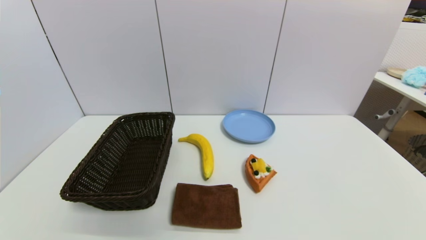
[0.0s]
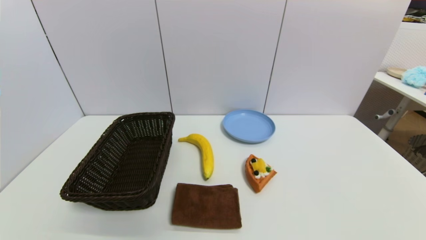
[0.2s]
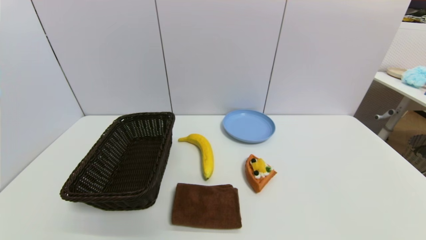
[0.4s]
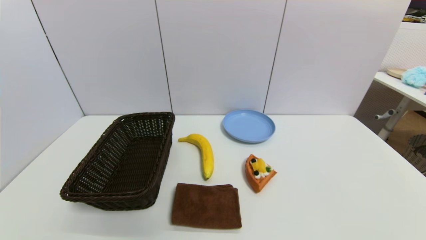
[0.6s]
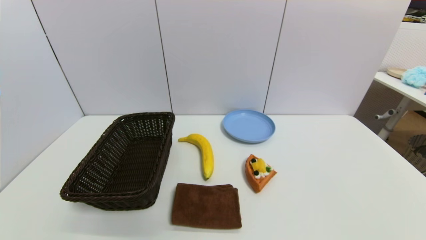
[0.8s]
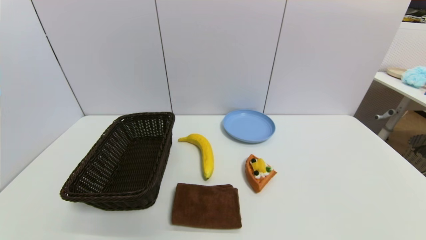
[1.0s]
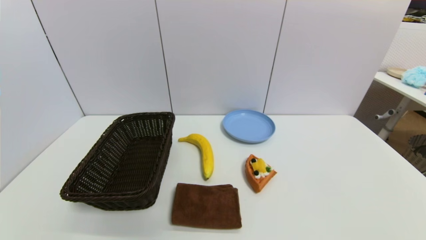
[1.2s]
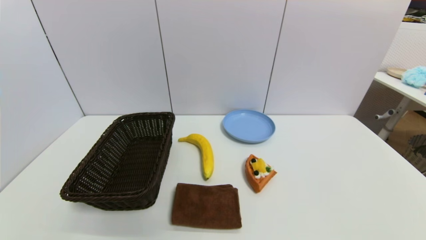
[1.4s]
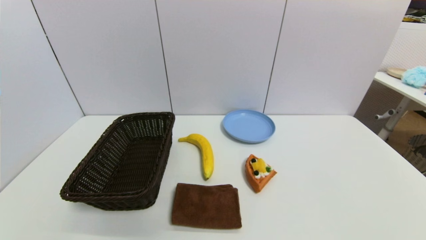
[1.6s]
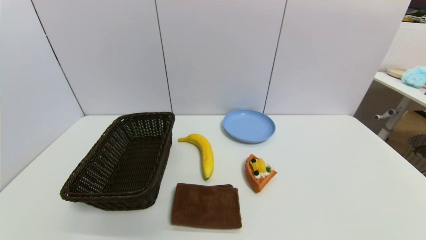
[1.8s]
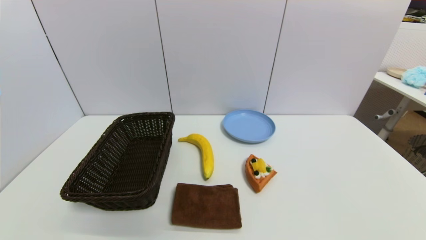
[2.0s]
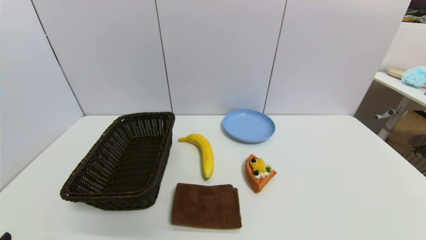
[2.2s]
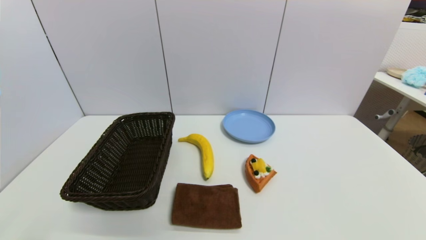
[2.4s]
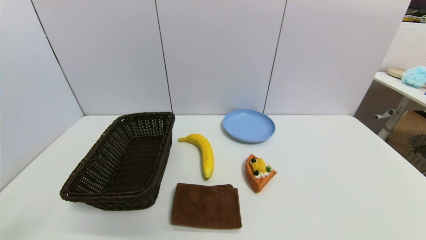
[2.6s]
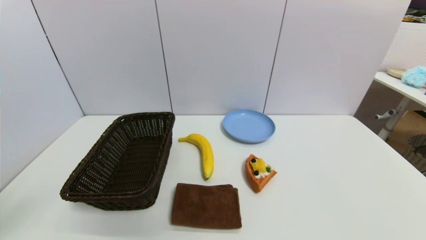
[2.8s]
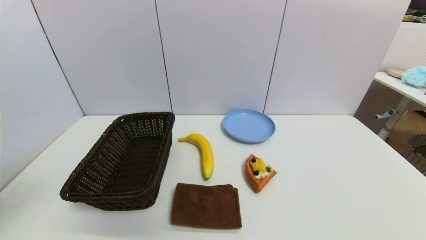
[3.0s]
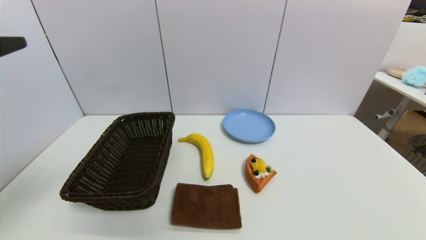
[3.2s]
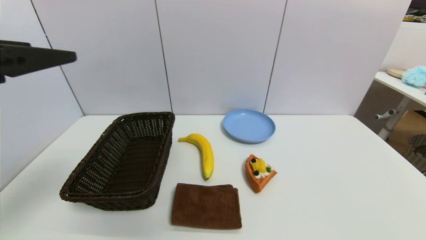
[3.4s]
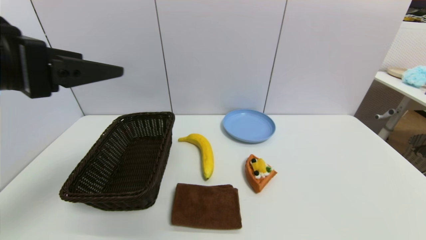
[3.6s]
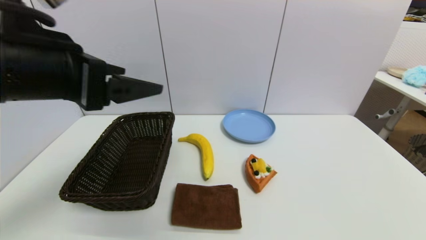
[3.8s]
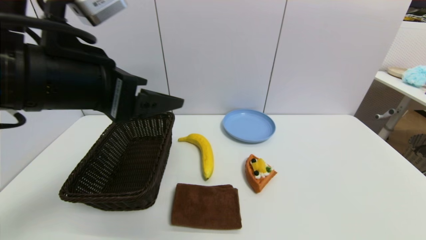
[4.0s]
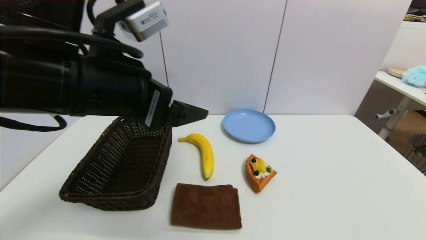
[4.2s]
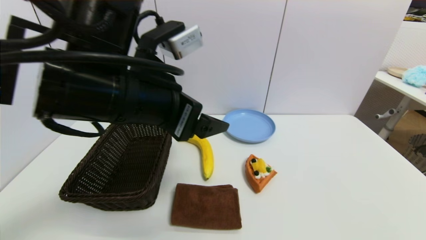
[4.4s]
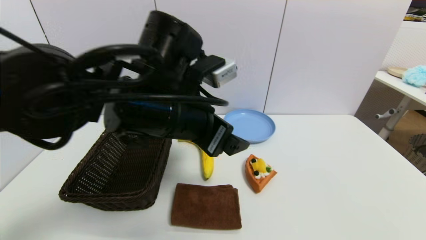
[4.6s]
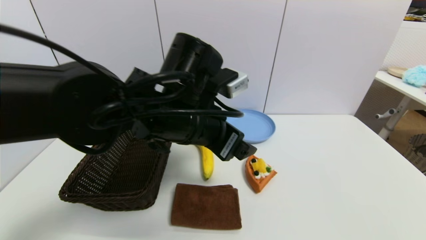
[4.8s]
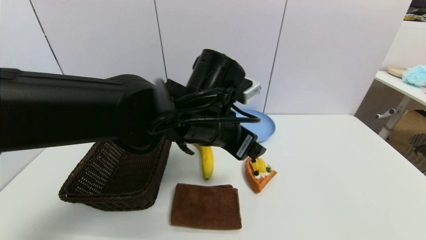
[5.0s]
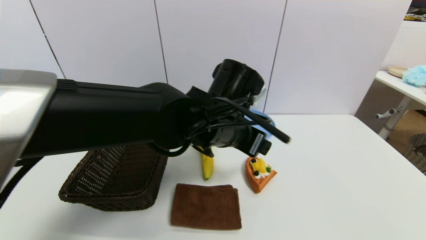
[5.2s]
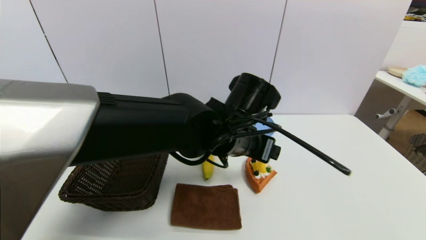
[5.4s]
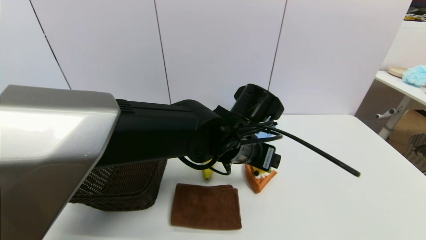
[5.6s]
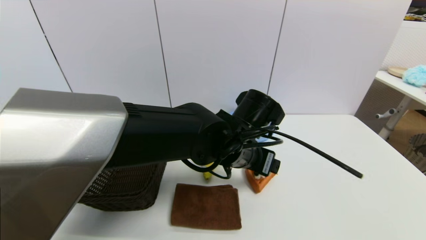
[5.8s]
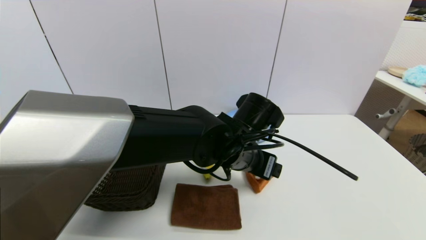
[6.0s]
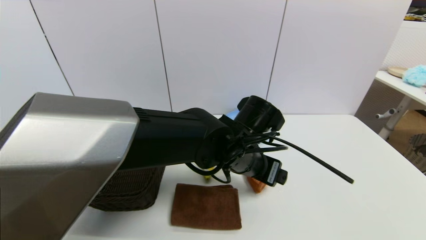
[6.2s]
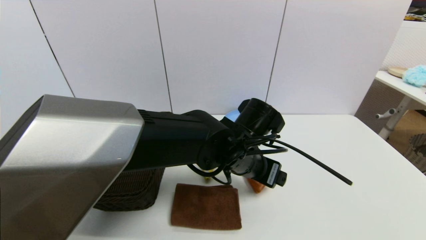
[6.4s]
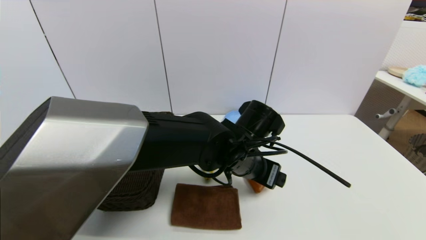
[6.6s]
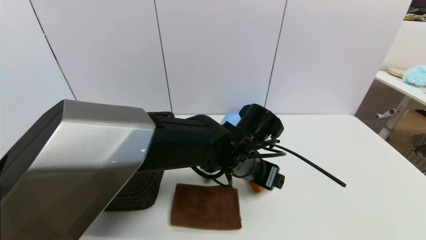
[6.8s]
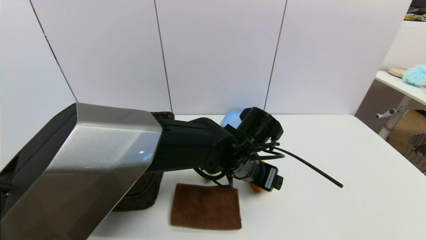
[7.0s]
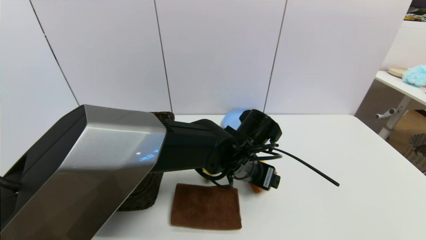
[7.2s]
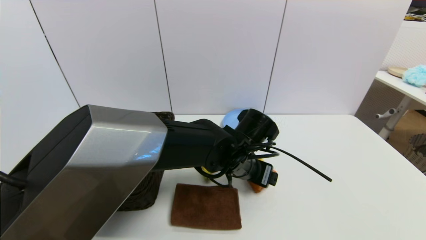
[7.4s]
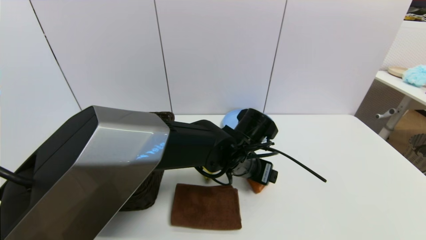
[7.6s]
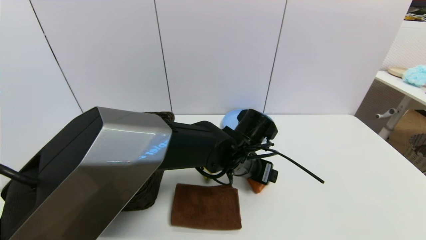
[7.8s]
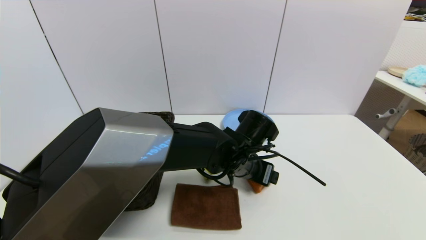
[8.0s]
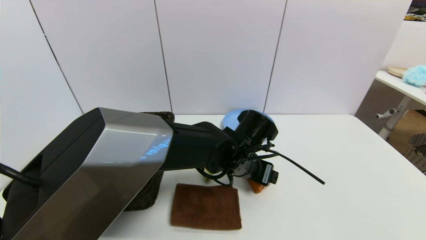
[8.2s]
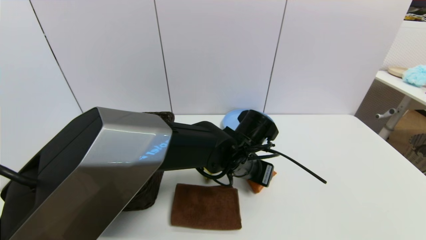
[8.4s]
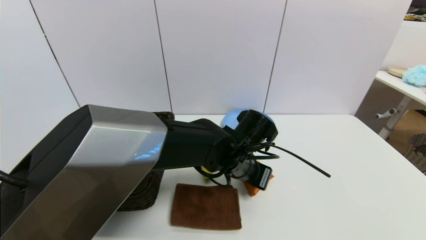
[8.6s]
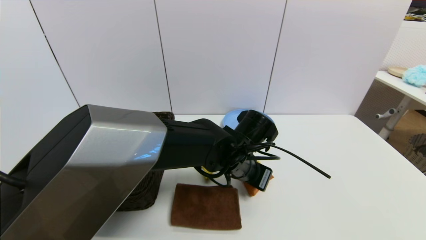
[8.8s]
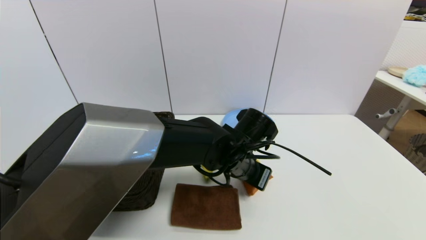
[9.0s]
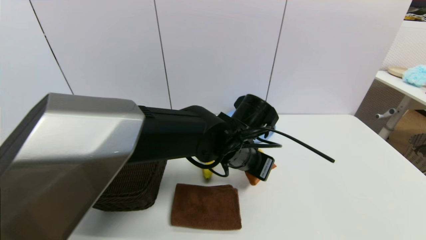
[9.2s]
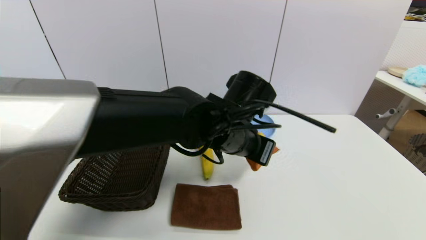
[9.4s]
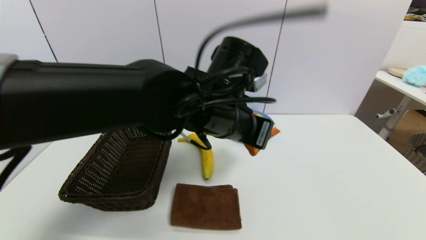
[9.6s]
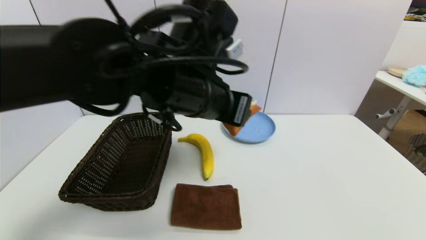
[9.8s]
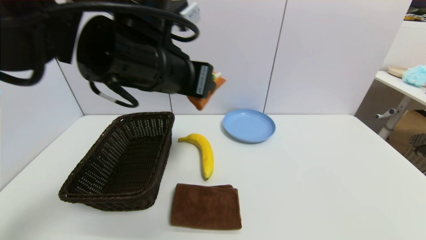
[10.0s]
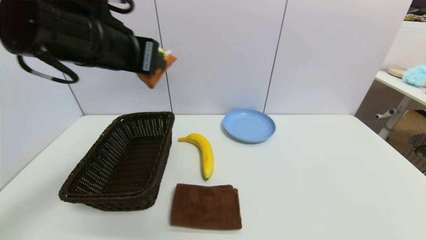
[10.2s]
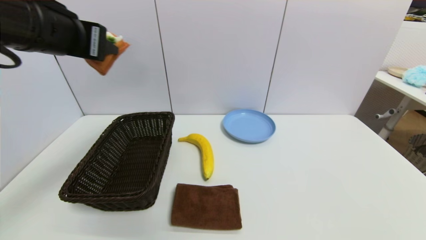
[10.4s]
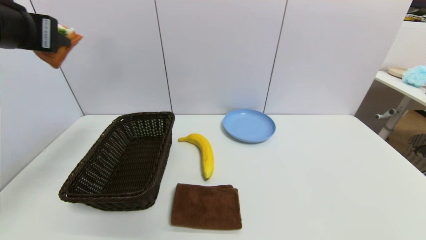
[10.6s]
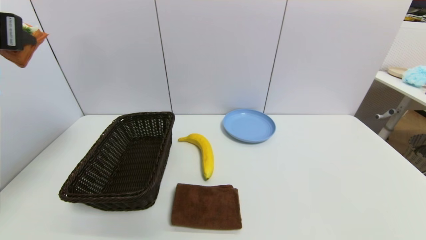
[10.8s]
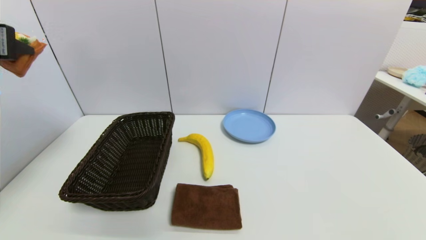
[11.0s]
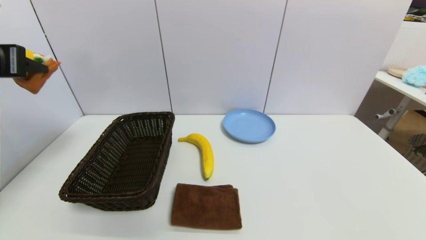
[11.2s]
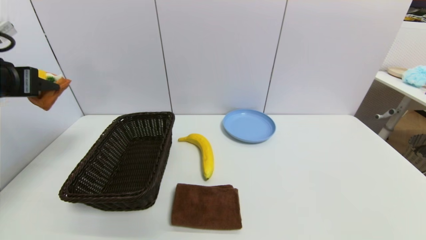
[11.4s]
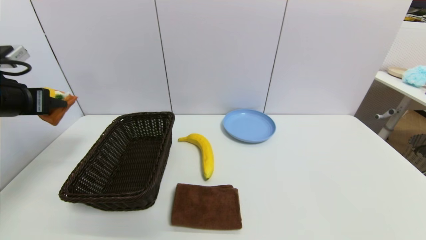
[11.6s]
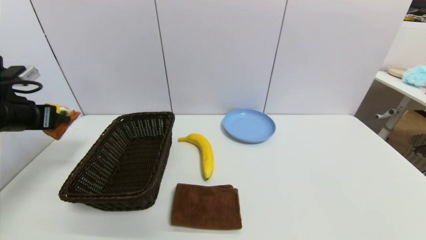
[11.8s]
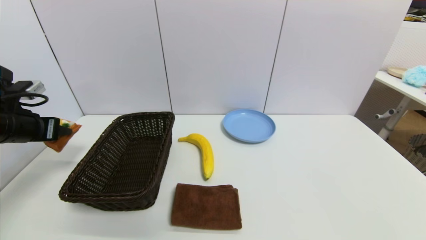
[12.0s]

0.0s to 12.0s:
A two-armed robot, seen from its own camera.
Step, 3.2s to 8.8s: Grasp the pizza with left gripper.
1.6s to 3.0s: The left gripper moves upward, some 25 cm.
3.0s to 4.4s: The left gripper is displaced to the right and forward by some 25 cm.
4.4s to 6.0s: The left gripper travels to the right and downward by approximately 20 cm.
6.0s to 7.6s: The grippers make only small movements.
7.6s to 9.0s: The left gripper closes up.
9.0s to 10.4s: The left gripper shifts approximately 35 cm to the left and upward.
10.4s to 12.0s: The left gripper goes approximately 20 cm downward and to the left.

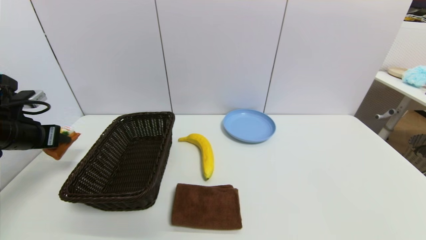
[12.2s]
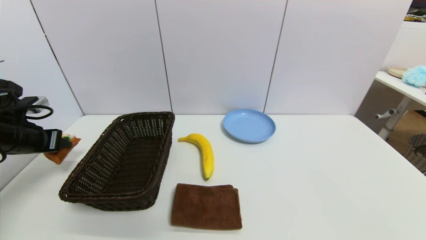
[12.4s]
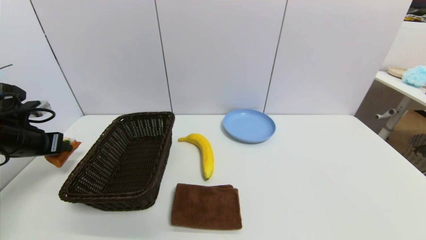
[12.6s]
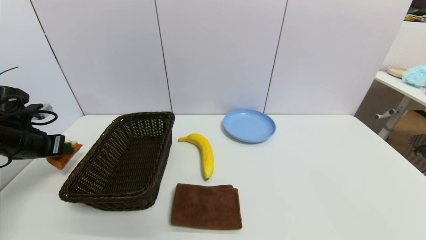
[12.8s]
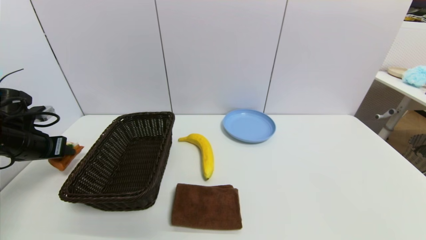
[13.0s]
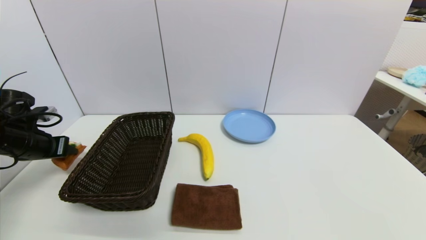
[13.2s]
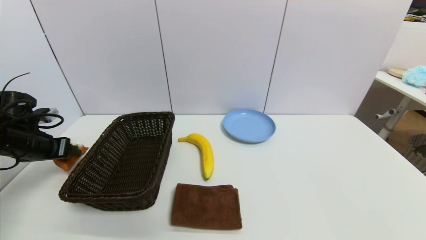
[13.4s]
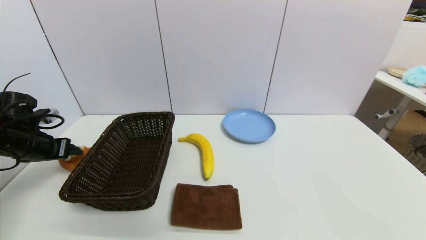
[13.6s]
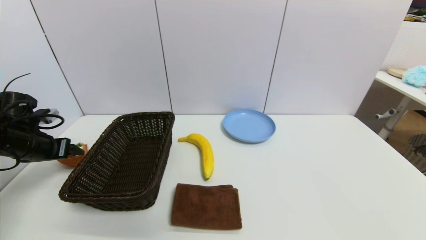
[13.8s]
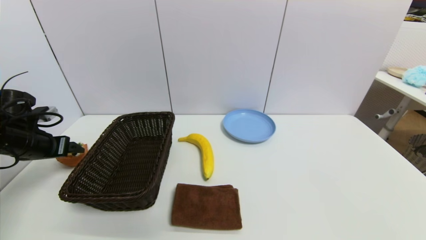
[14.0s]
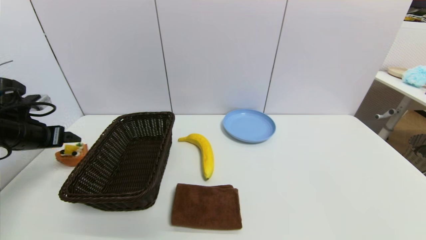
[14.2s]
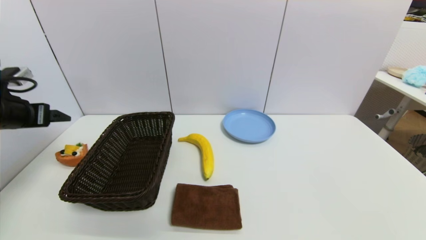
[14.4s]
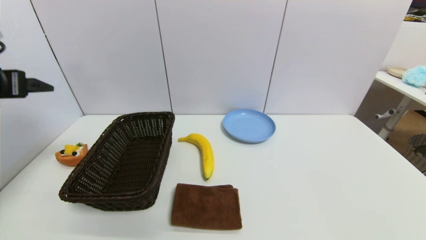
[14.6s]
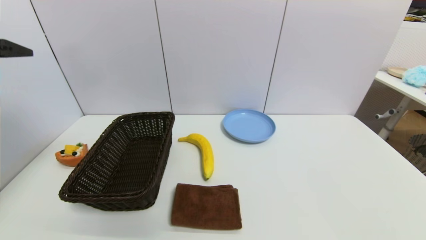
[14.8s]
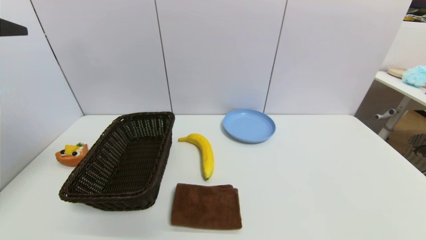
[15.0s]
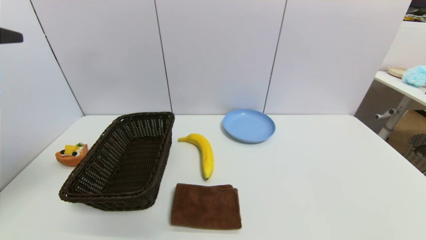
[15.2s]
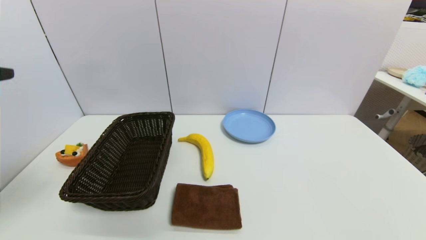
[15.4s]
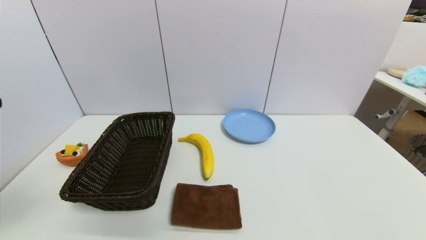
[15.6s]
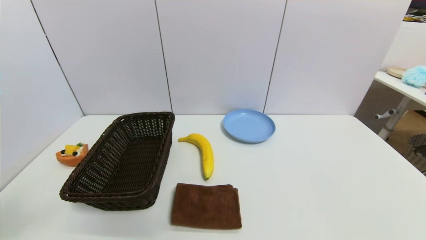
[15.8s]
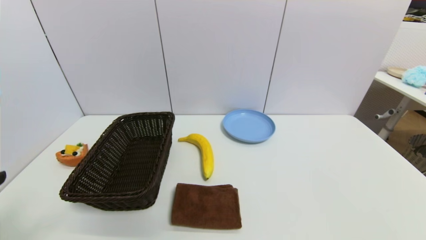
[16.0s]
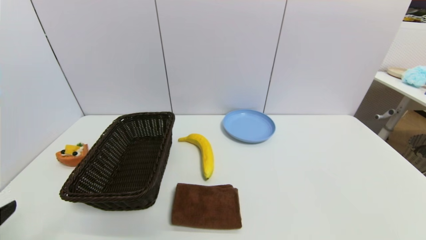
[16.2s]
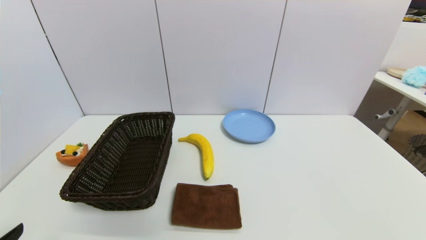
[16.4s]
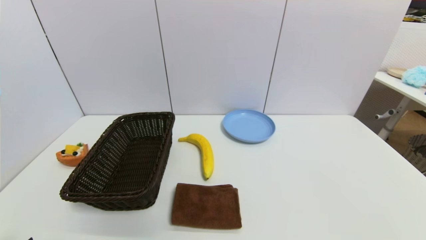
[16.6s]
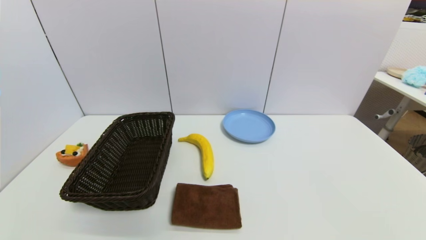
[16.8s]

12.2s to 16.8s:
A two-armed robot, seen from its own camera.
12.2s to 13.8s: The left gripper shifts by approximately 5 cm, and opens up.
13.8s to 15.2s: The left gripper moves upward and backward, roughly 30 cm.
15.2s to 16.8s: The left gripper travels downward and backward by approximately 30 cm.
